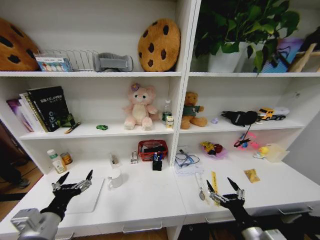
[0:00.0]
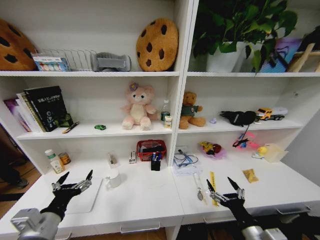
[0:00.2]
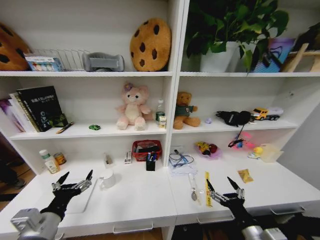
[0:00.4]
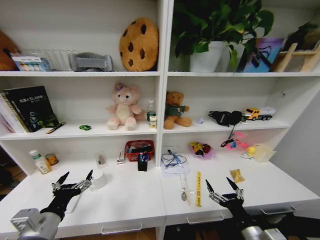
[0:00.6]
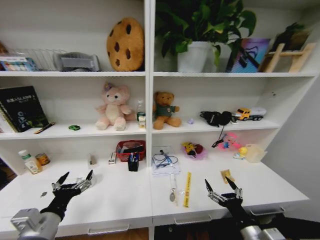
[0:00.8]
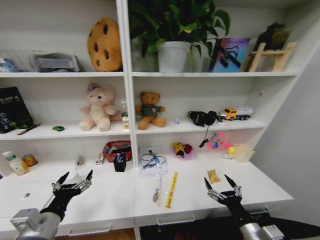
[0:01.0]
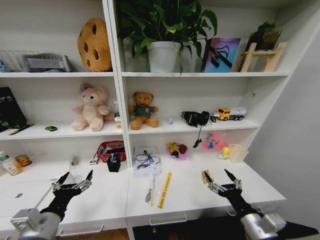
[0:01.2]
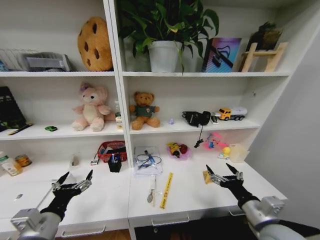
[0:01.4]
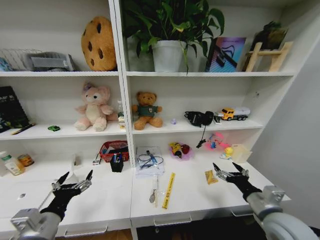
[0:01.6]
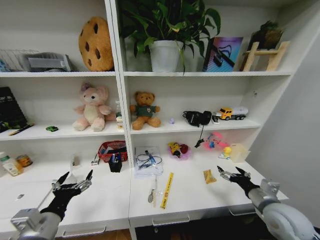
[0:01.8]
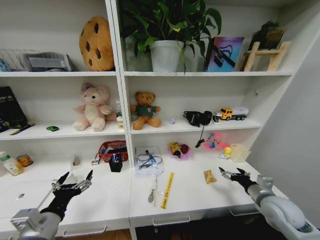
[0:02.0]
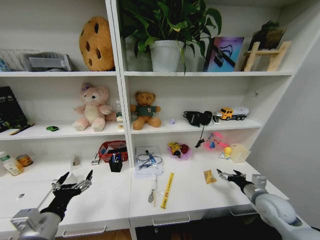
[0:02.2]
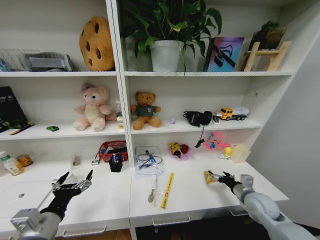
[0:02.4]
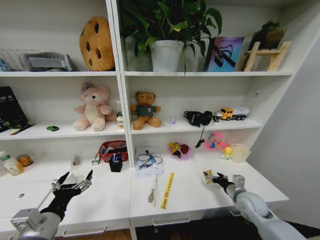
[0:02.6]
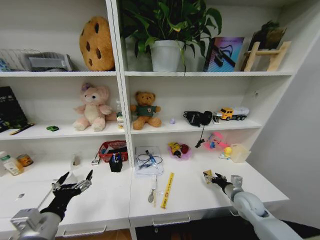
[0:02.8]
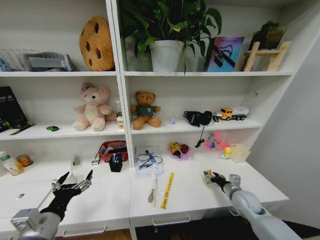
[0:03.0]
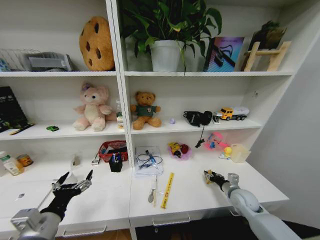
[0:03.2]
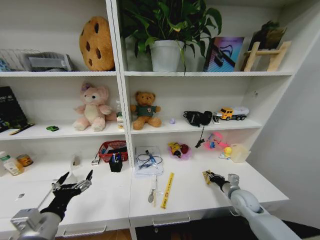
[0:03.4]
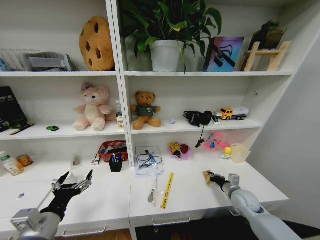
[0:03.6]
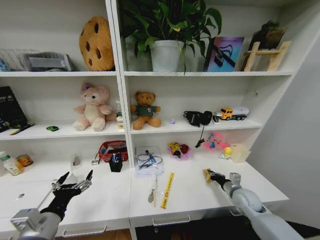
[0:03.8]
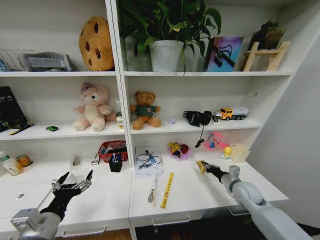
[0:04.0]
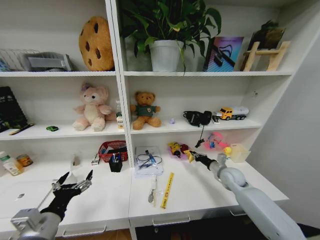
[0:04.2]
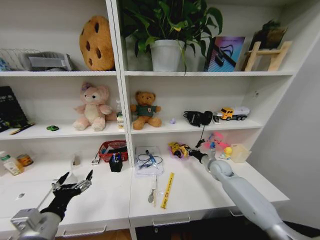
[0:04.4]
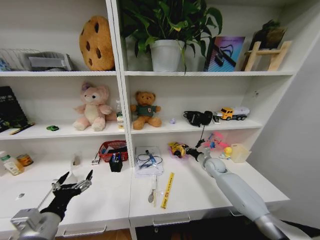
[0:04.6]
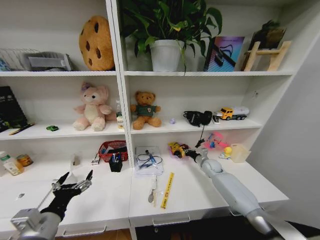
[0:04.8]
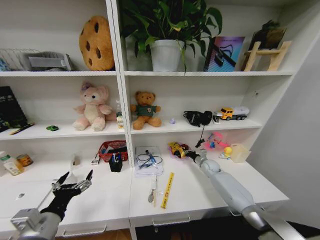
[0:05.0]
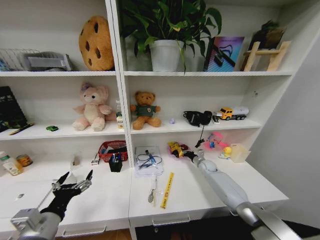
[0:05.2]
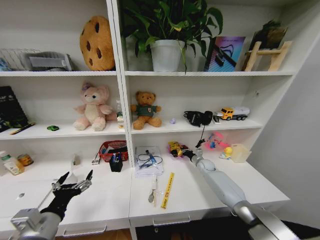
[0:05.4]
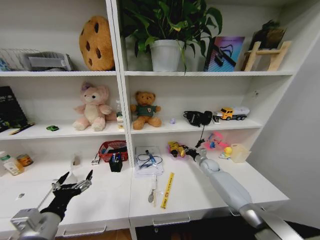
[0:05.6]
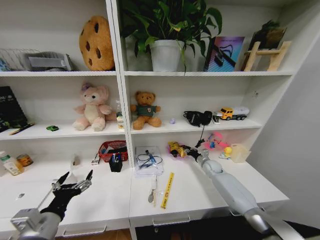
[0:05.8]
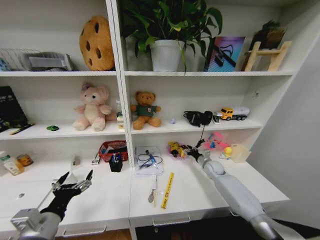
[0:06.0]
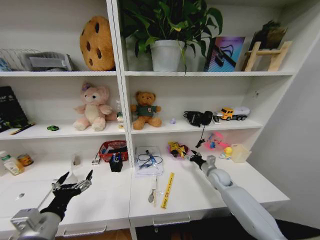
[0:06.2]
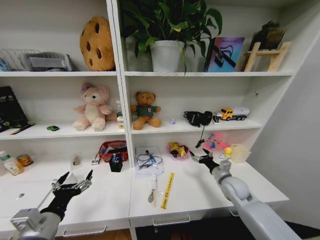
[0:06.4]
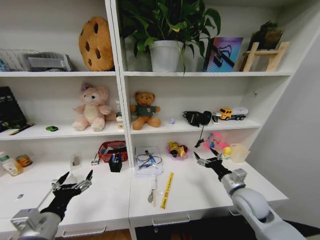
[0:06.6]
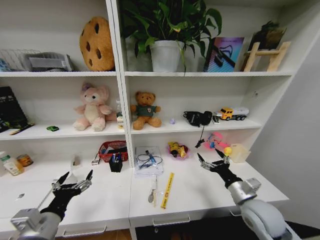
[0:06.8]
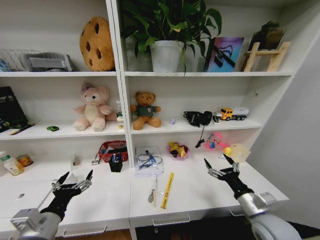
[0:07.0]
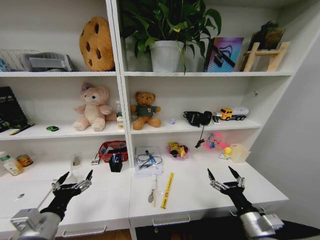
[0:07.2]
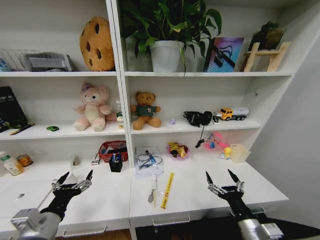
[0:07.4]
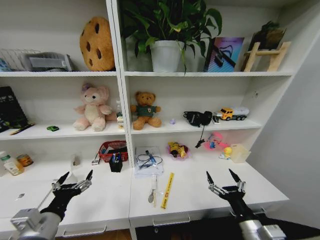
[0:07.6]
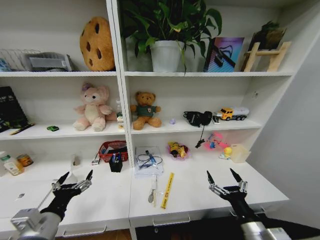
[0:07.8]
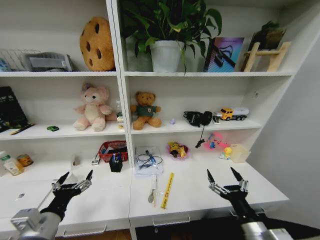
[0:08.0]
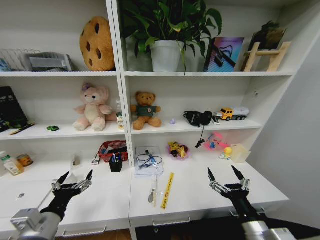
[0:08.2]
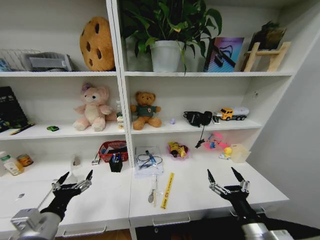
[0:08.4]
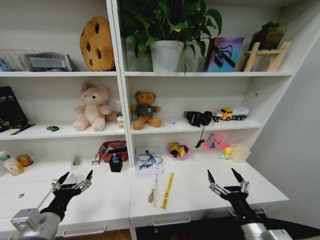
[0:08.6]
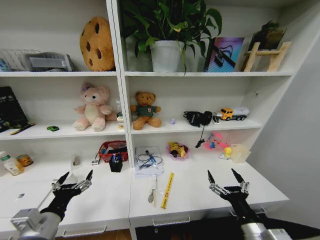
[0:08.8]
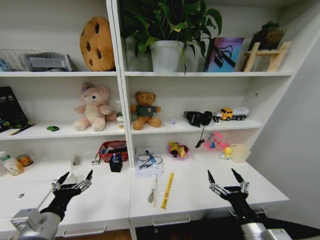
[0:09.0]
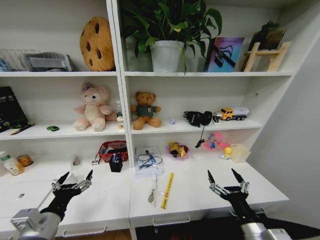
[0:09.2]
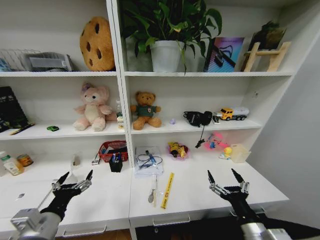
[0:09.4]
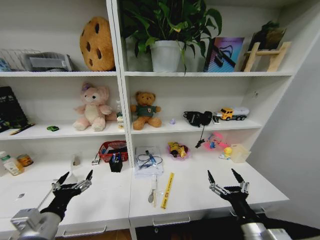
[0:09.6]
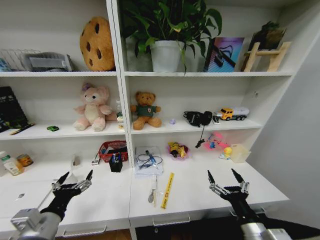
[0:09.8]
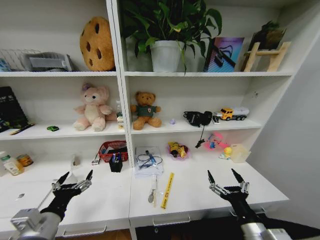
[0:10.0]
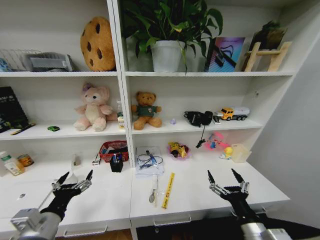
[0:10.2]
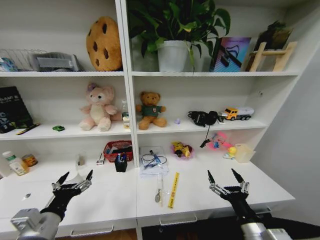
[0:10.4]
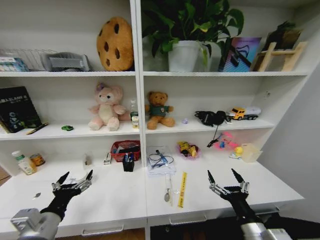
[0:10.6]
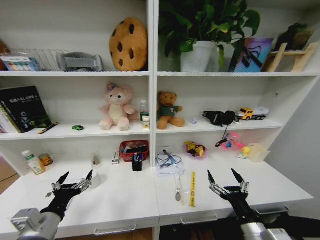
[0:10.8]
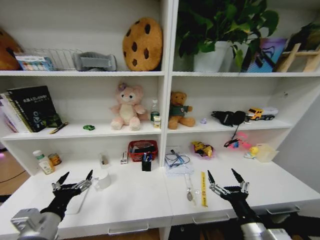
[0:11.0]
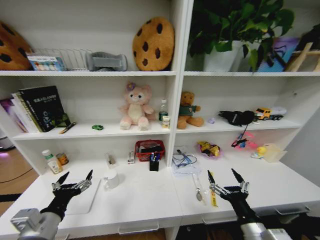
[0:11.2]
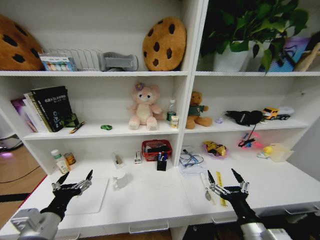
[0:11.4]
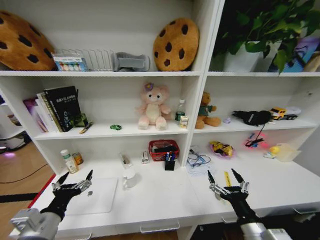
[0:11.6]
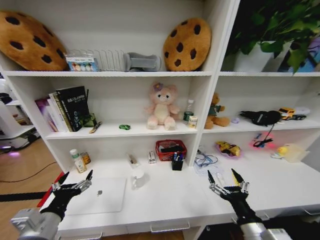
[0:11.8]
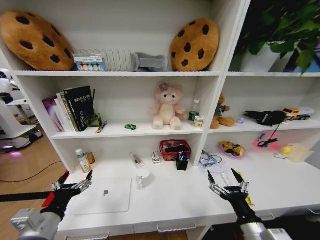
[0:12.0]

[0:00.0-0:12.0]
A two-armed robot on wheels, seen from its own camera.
Task of the whole recording: Organize the objects on the table.
0:00.0 to 0:01.6: The right gripper shifts some 10 cm forward and upward.
0:01.6 to 0:03.0: The right gripper moves forward, downward and to the right, roughly 20 cm.
0:03.0 to 0:04.4: The right gripper heads forward, covering approximately 15 cm, and closes.
0:04.4 to 0:06.0: The right gripper opens up.
0:06.0 to 0:07.6: The right gripper goes roughly 35 cm backward, and opens.
0:07.6 to 0:09.0: The grippers move only a little.
0:09.0 to 0:10.4: The two grippers keep their place.
